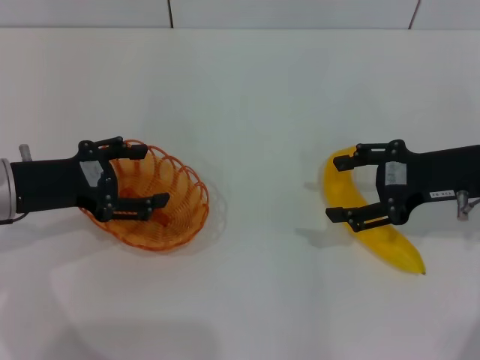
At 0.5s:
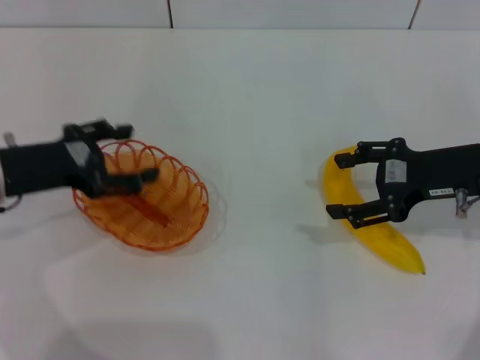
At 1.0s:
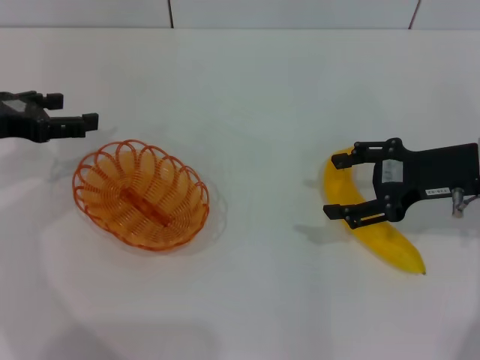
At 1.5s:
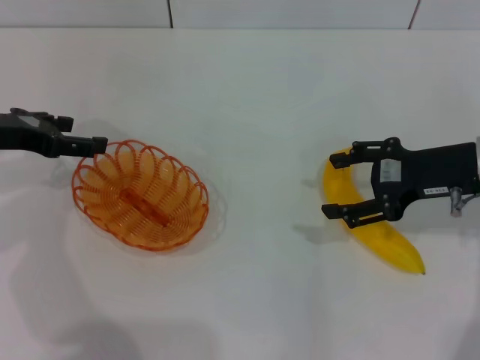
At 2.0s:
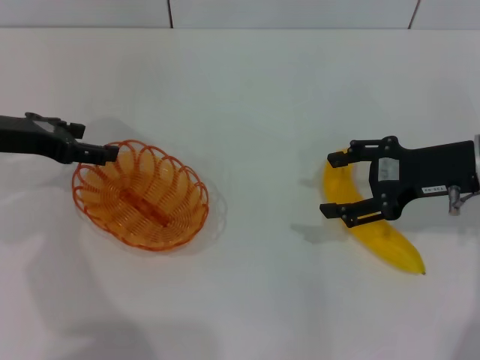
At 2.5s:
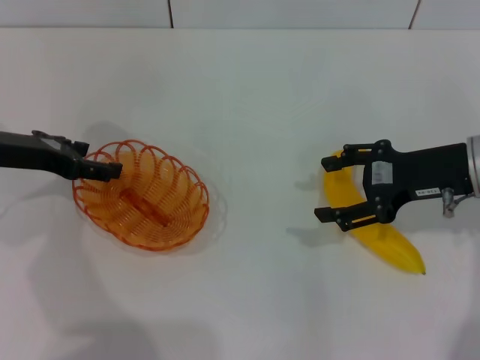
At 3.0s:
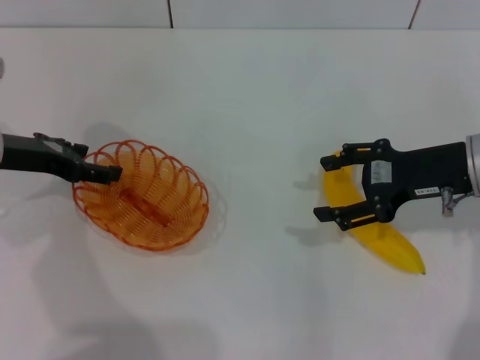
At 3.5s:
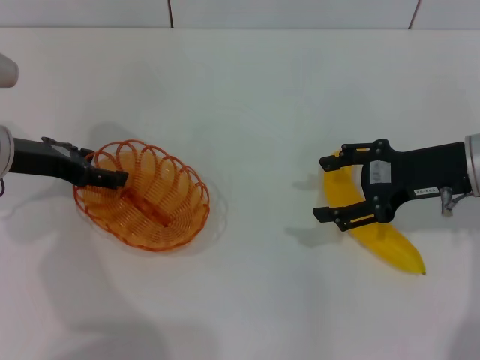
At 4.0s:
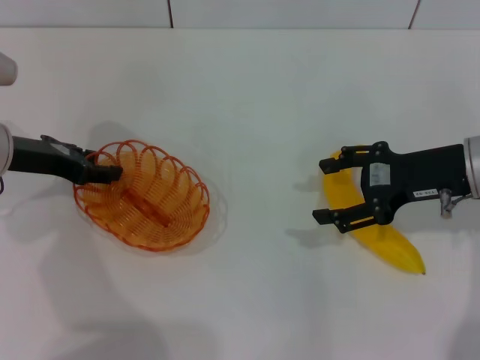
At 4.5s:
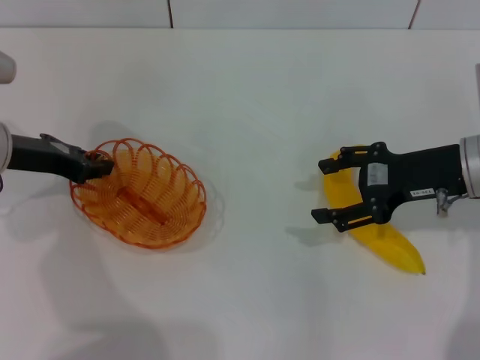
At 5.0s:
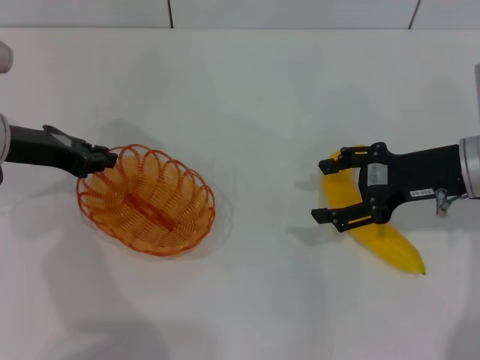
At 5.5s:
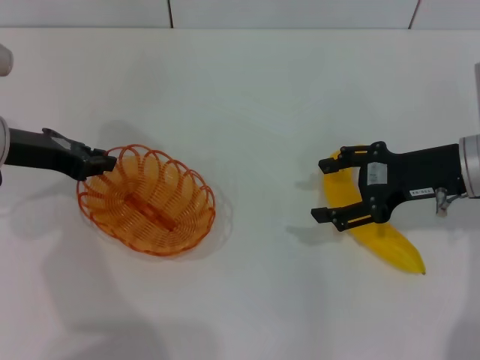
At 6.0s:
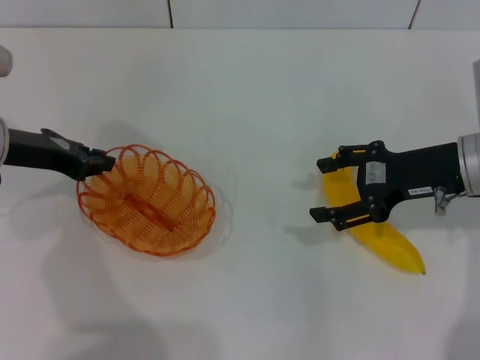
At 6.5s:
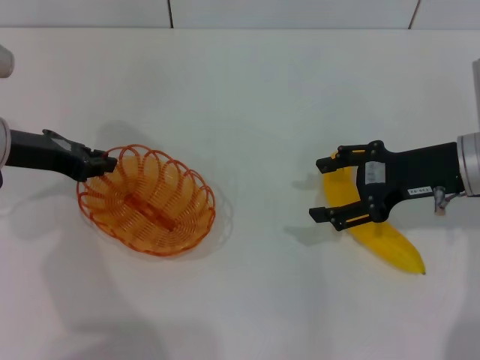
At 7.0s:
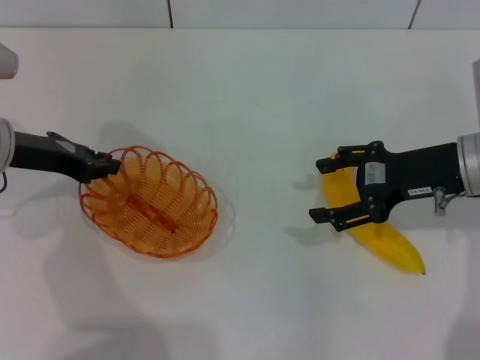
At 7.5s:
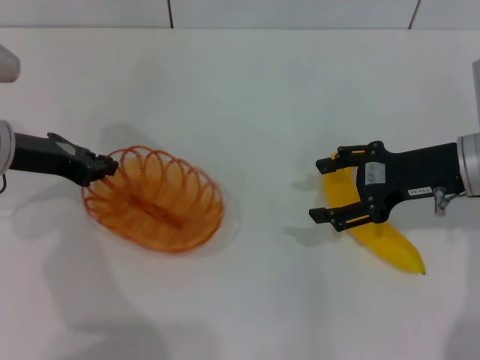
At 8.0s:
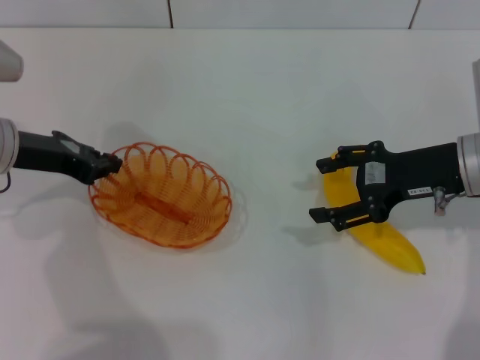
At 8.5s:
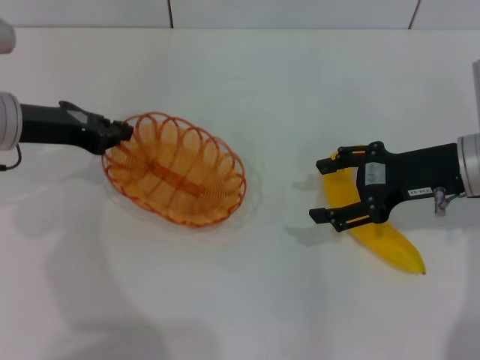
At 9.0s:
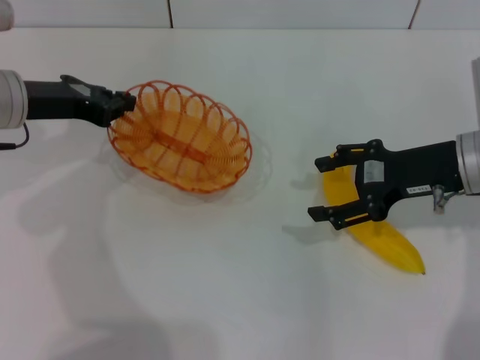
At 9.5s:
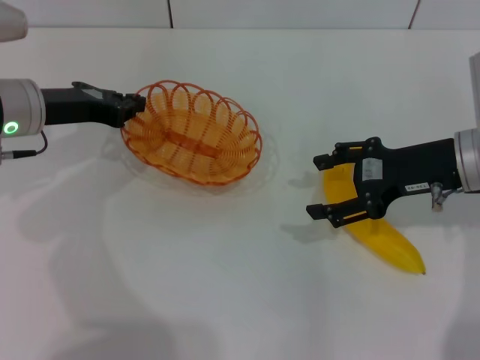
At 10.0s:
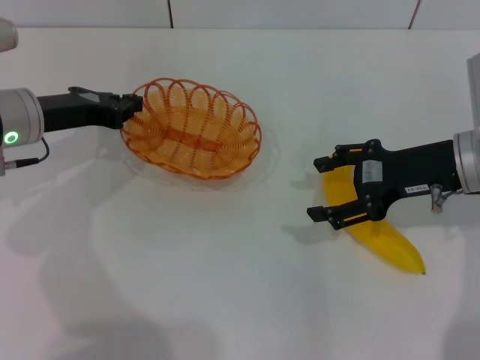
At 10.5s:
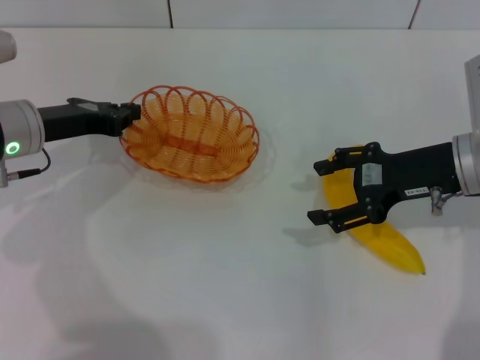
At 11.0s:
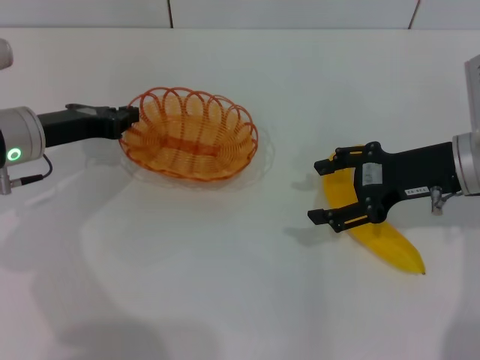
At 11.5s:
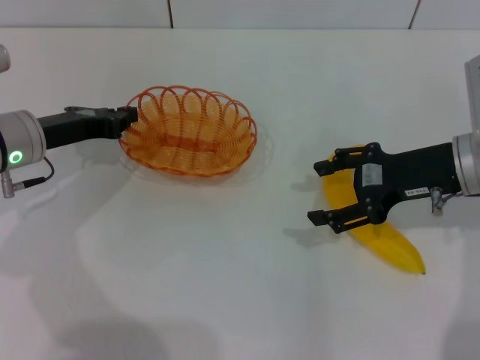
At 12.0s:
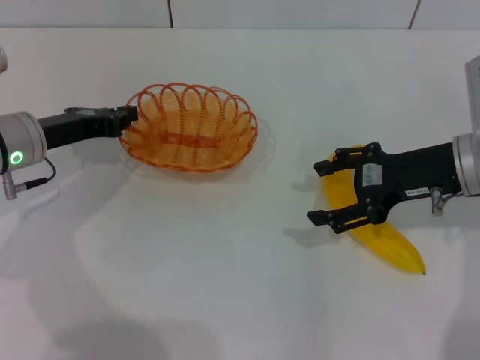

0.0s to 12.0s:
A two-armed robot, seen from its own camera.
Step, 0.0s to 9.0s: Pick up the basket with the left gripper.
0.0s to 2.0s: The left gripper moves forward, approximately 5 cm.
2.0s to 4.0s: The grippers move only a little.
4.0s to 6.0s: The left gripper closes its fingers.
6.0s to 8.0s: Neither gripper changes place.
10.0s to 12.0s: There are only small adjustments of the grippers.

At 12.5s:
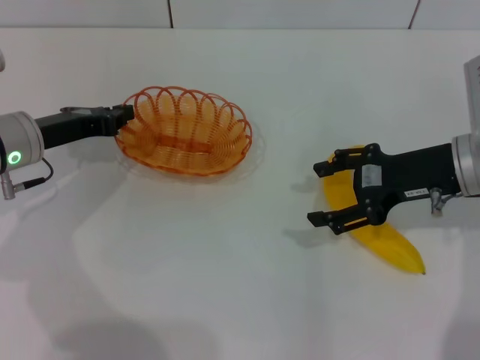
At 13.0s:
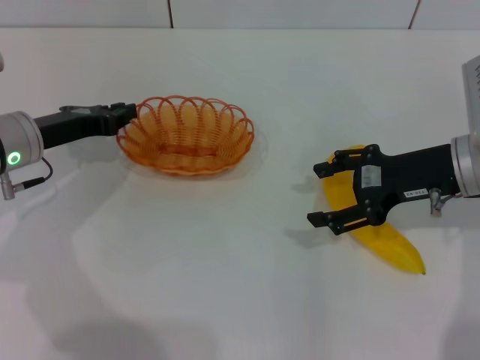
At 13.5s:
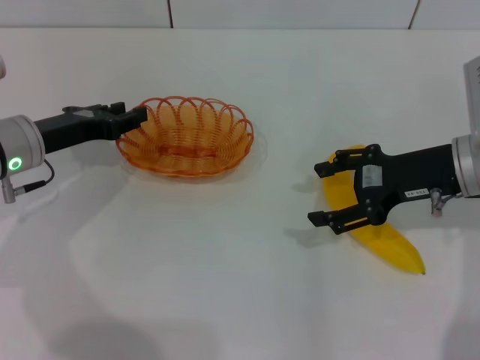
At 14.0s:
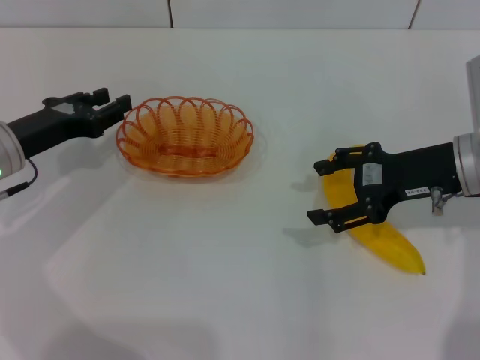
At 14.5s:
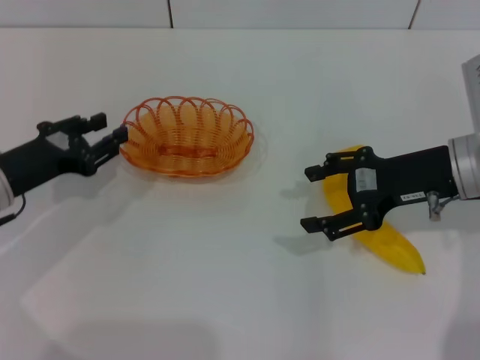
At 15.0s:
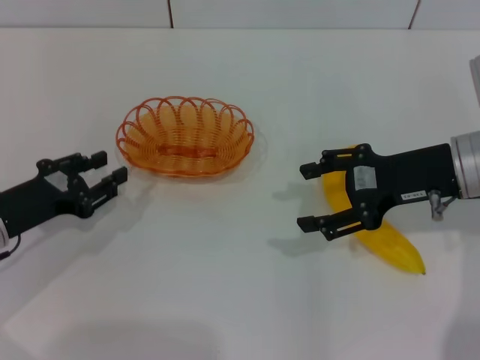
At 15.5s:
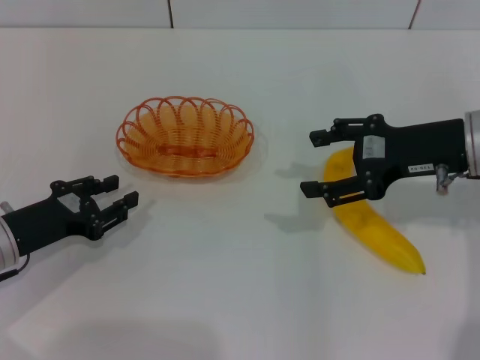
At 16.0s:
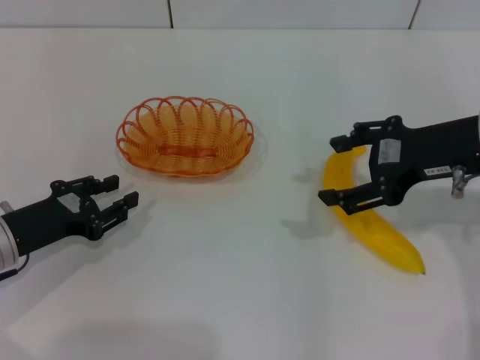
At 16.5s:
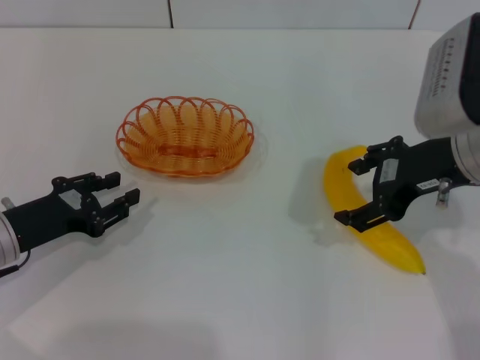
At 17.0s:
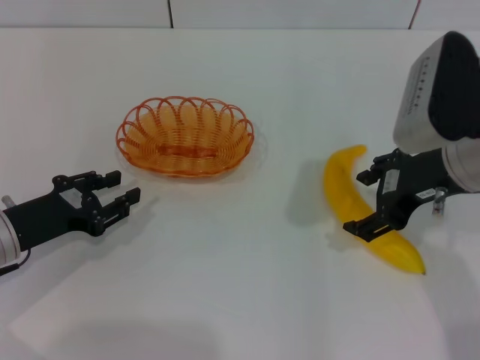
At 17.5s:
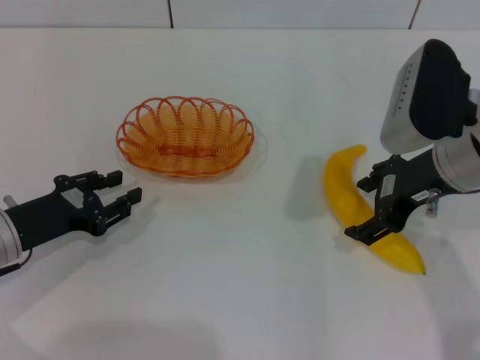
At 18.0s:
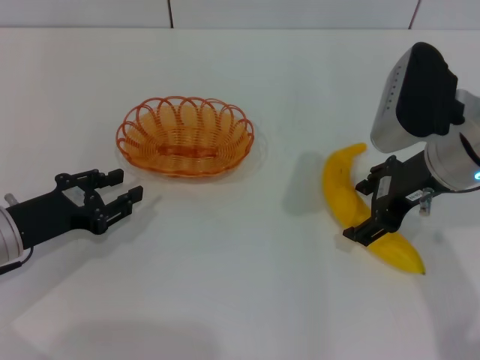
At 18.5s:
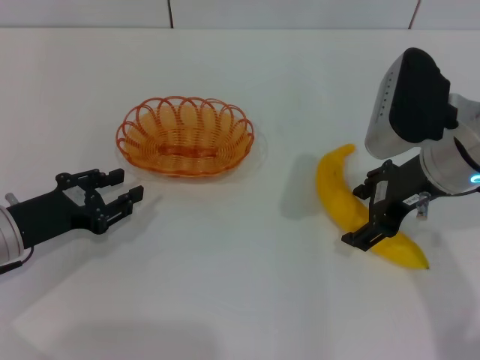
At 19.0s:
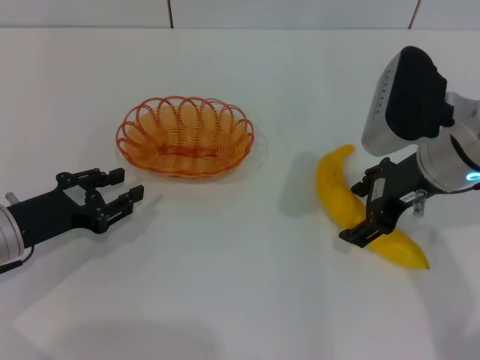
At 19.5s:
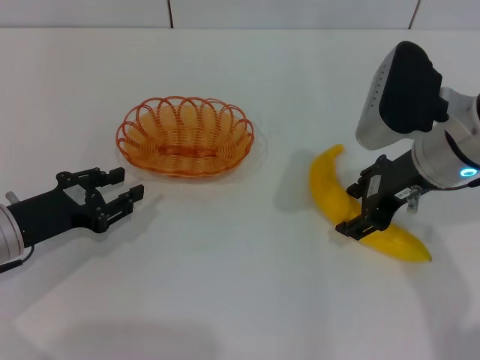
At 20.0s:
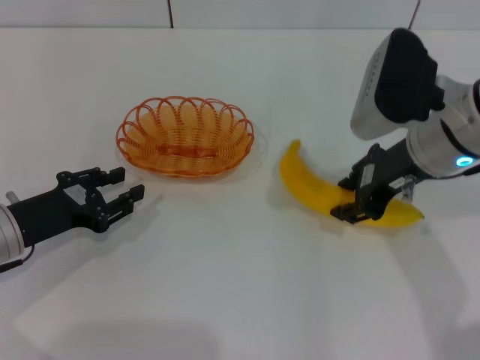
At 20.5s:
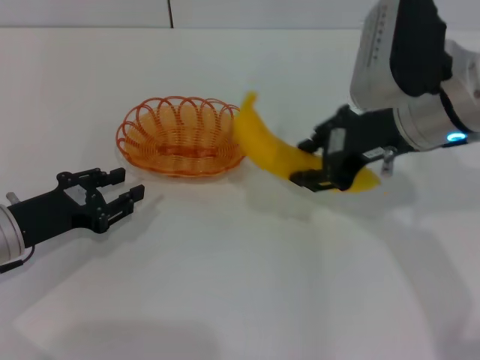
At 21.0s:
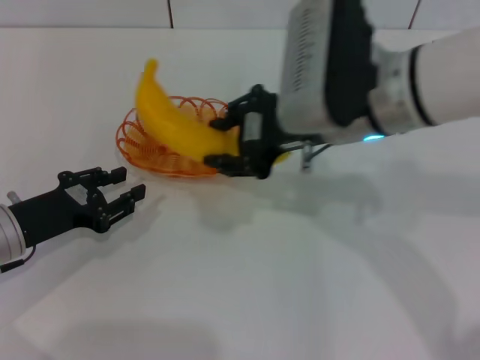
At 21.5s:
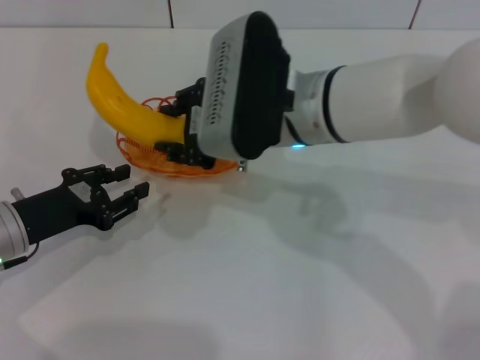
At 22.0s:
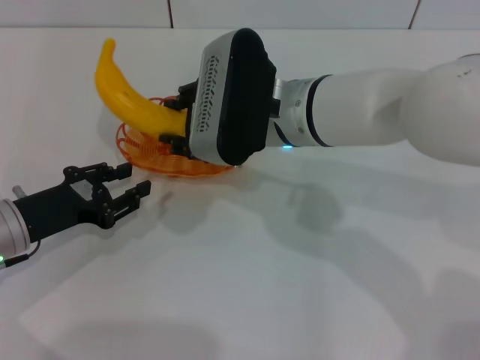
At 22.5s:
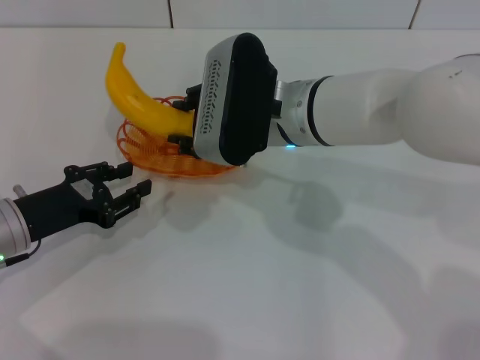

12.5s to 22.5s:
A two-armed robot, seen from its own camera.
Step, 14.0s to 20.5s: Pick up the banana with the right gripper.
12.5s to 14.5s: The left gripper shifts about 5 cm backward, and opens up.
14.5s to 16.5s: The right gripper travels upward by some 5 cm.
16.5s to 18.5s: The grippers move only a little.
18.5s to 20.5s: The right gripper shifts by approximately 5 cm, and closes its fingers.
20.5s to 22.5s: The right gripper heads to the left and downward, covering roughly 15 cm.

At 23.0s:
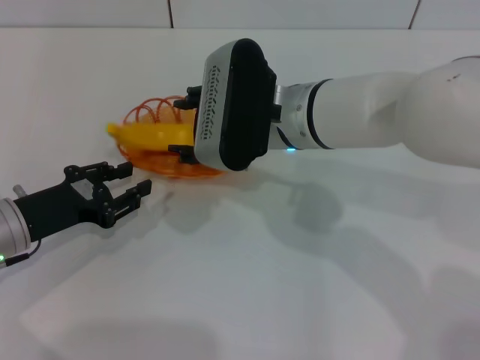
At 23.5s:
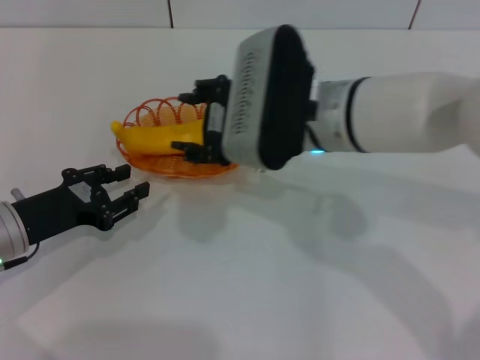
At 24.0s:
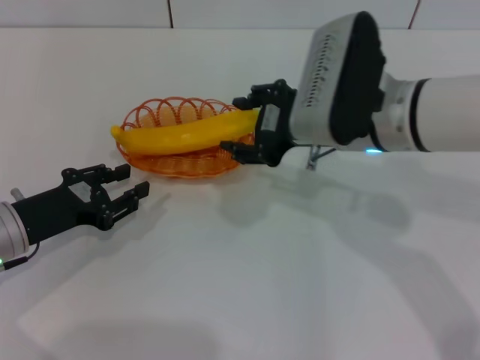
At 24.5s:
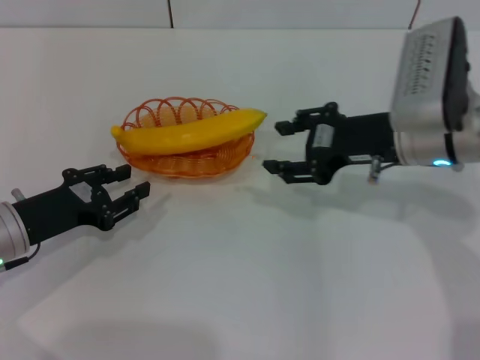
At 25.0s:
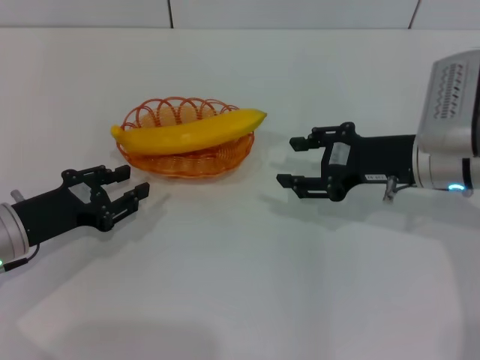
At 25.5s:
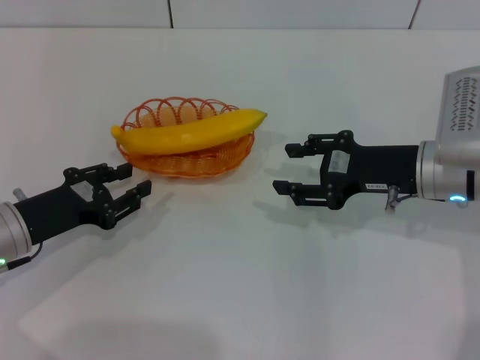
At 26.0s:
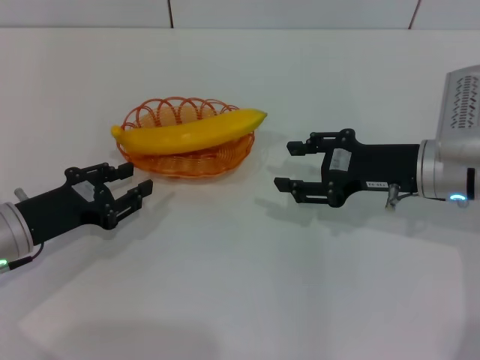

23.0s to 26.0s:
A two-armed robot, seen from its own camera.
23.0s to 24.5s: The right gripper heads to the right, covering roughly 15 cm.
24.5s to 26.0s: The right gripper ends up about 5 cm from where it was.

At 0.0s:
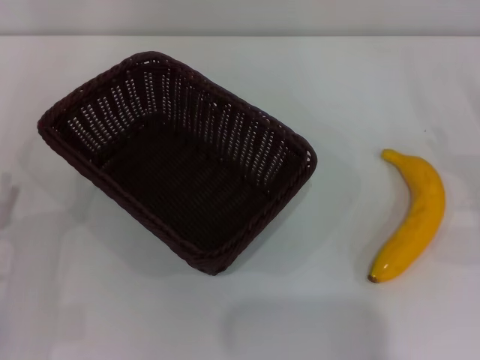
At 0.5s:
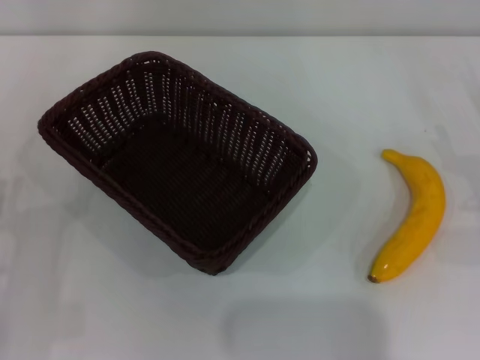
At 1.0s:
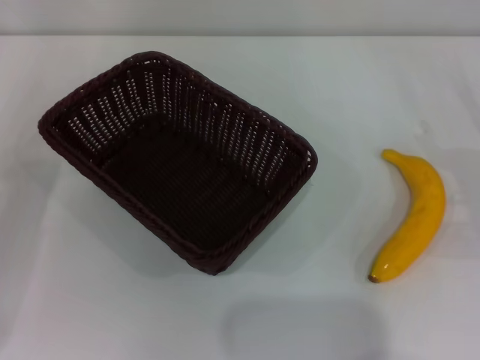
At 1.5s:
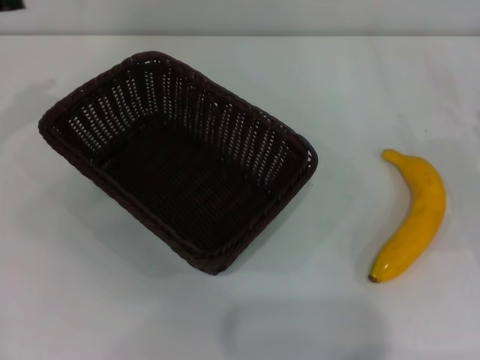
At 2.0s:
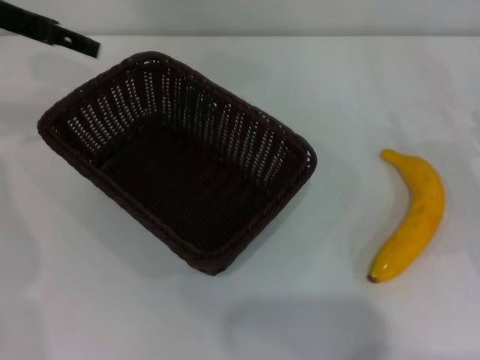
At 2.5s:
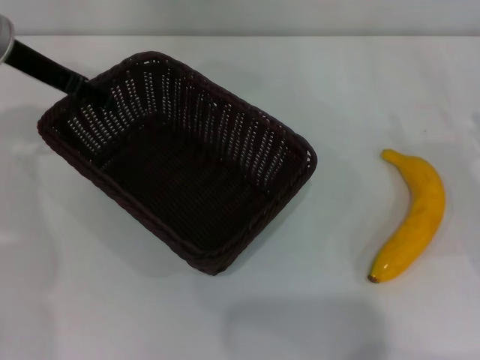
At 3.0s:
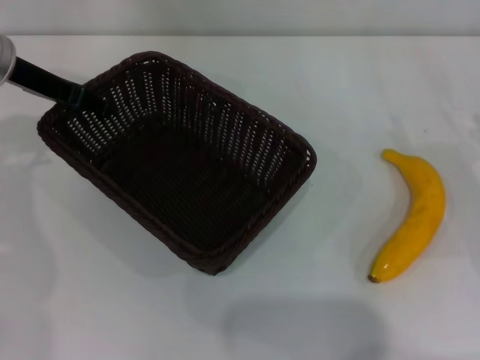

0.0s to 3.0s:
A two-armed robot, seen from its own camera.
0.0s to 1.5s: The left gripper moves forward and upward, roughly 25 cm.
1.5s to 3.0s: The left gripper is displaced to the right by some 10 cm.
